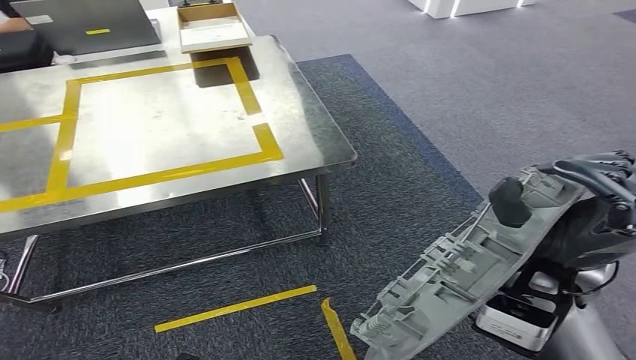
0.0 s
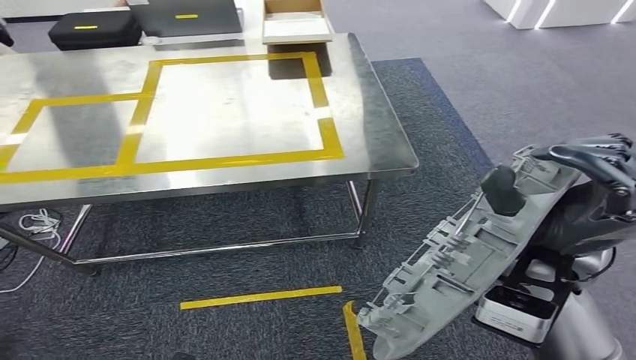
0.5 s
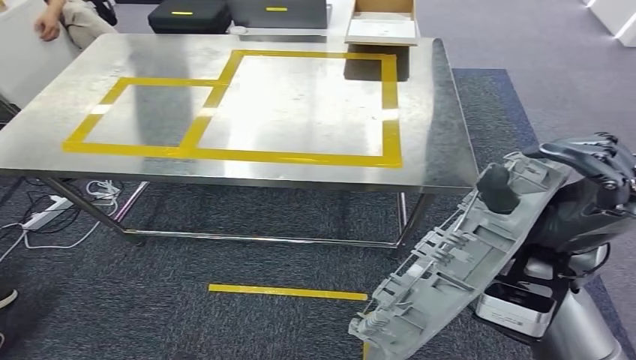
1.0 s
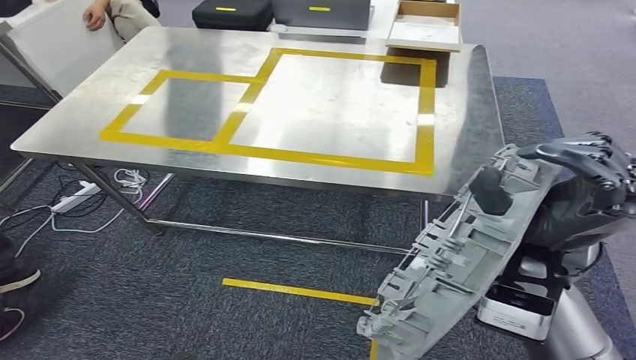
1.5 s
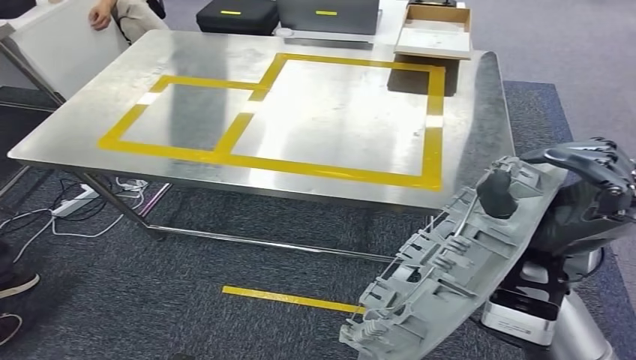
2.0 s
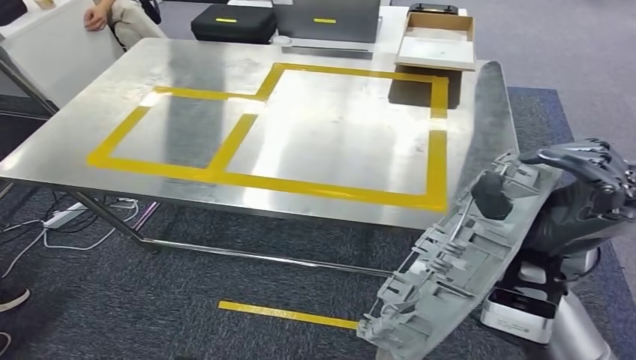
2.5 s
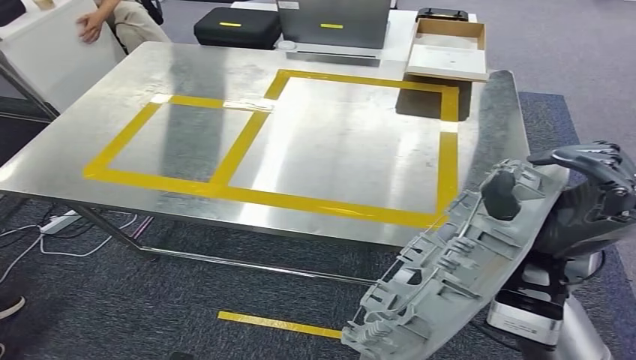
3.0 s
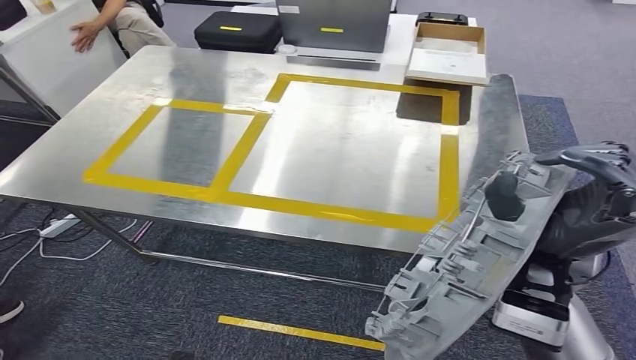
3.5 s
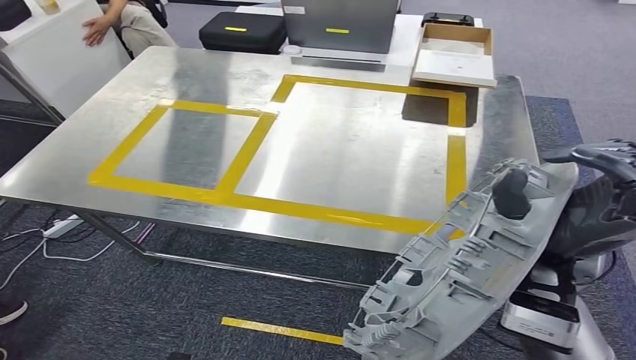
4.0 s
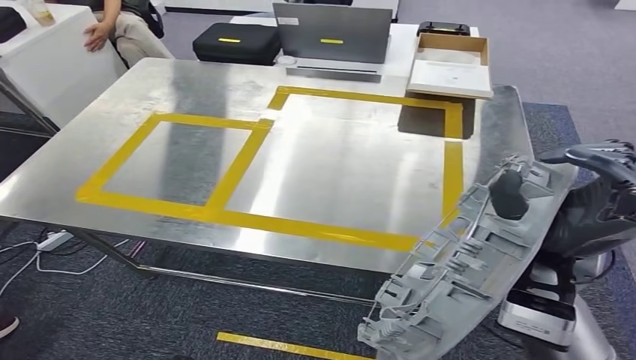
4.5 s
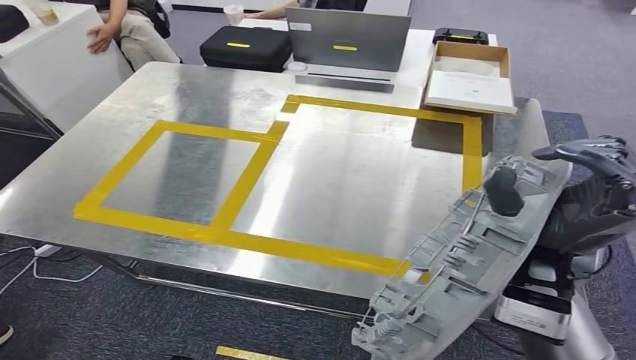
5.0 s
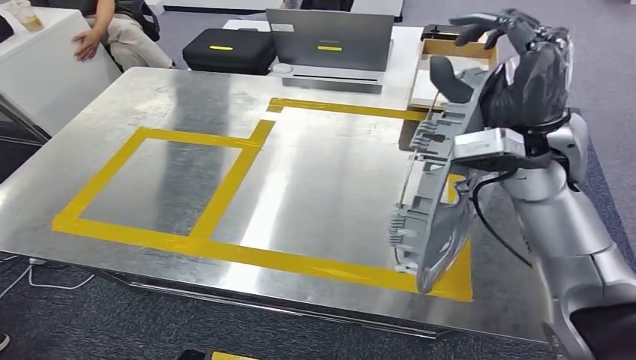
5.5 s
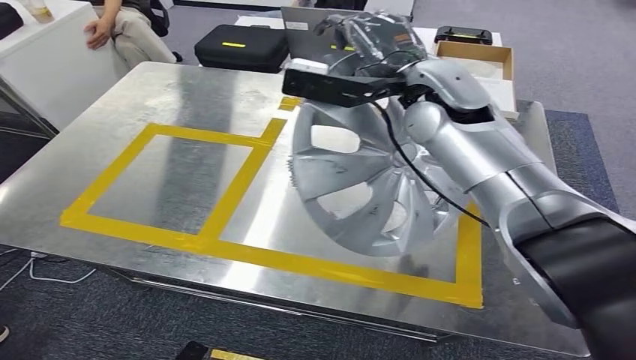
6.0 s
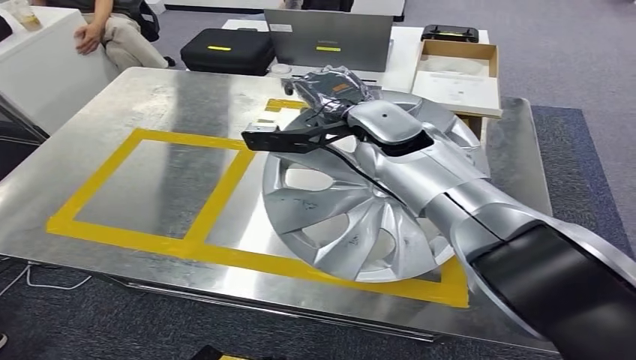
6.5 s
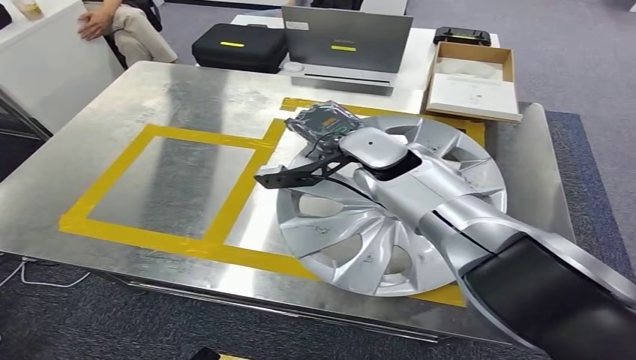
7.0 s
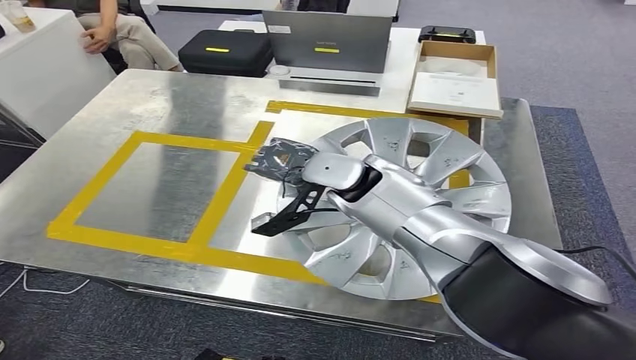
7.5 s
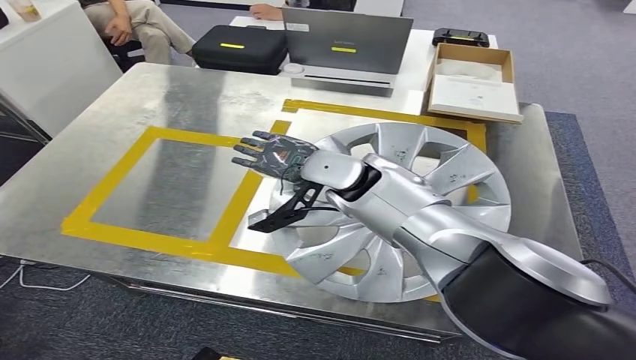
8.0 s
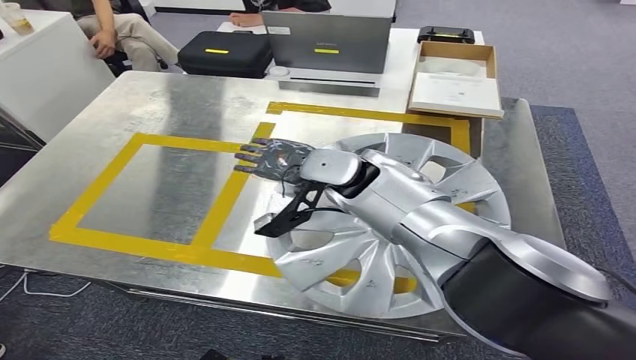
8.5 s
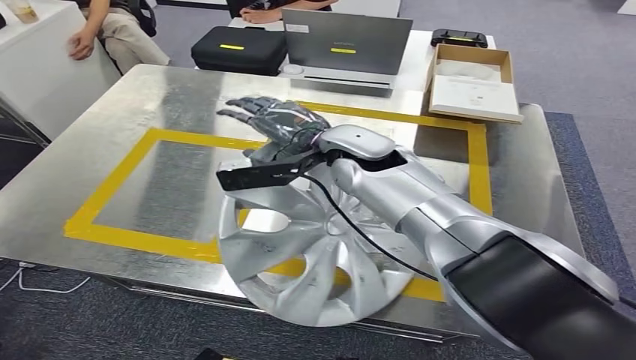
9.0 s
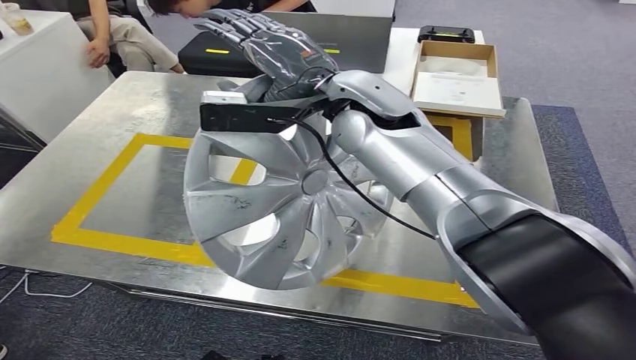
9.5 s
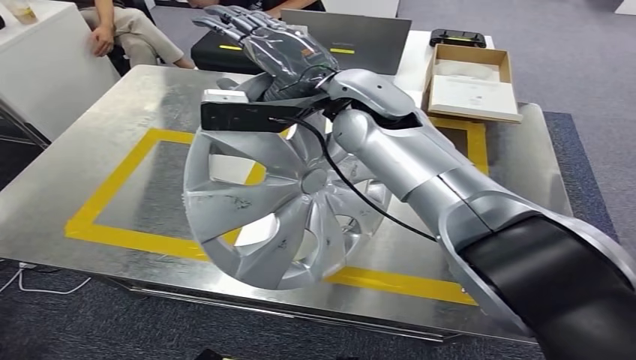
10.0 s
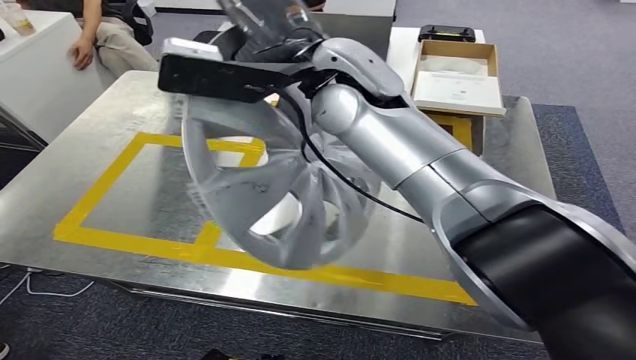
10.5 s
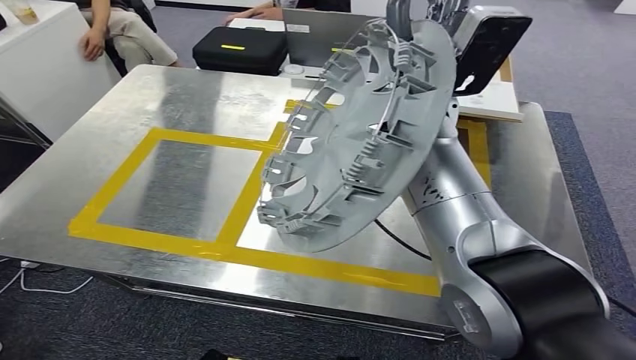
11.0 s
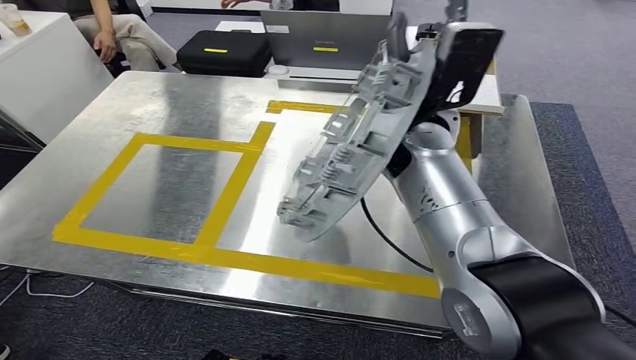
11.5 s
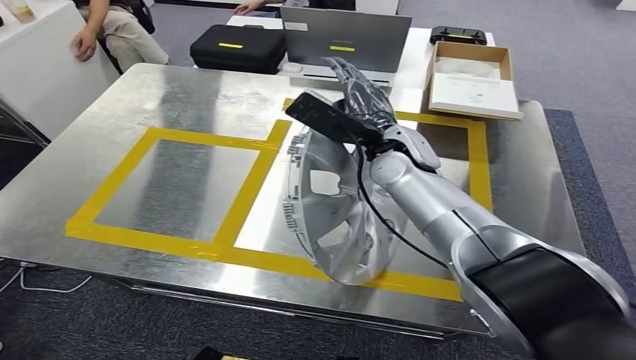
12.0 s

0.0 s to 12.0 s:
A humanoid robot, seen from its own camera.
Step, 0.0 to 3.5 s: Move the small parts to the workbench.

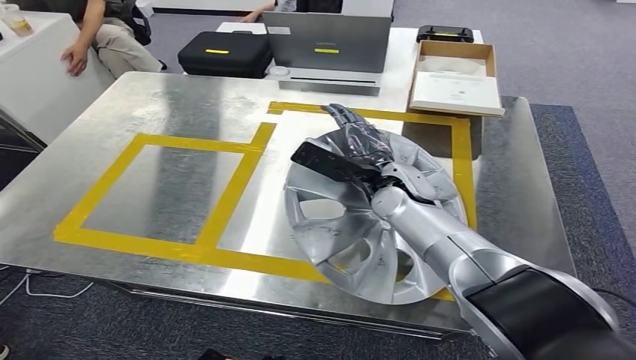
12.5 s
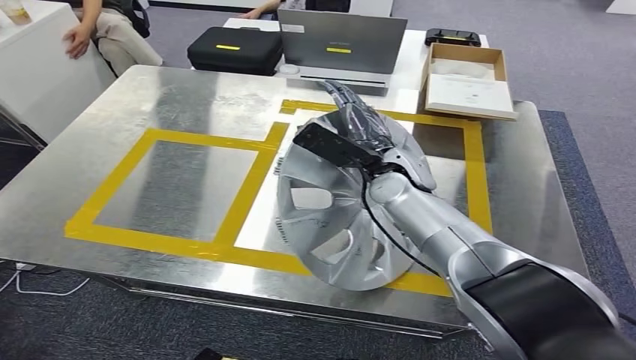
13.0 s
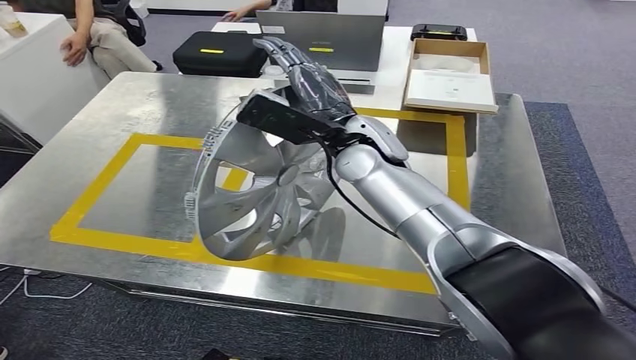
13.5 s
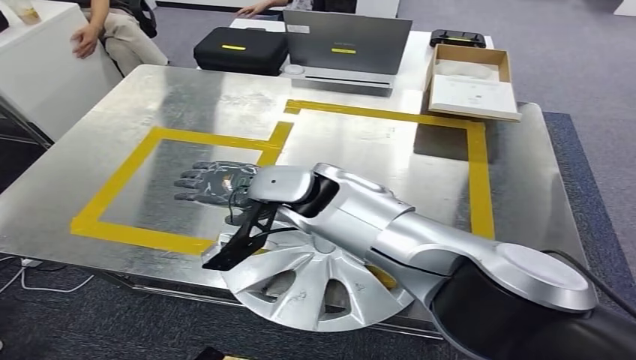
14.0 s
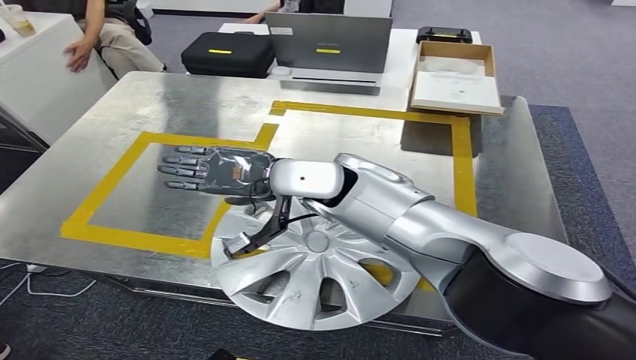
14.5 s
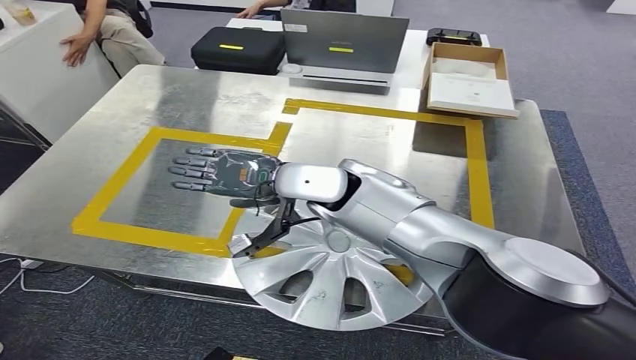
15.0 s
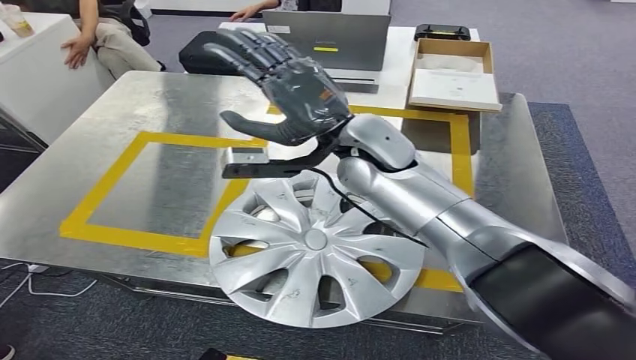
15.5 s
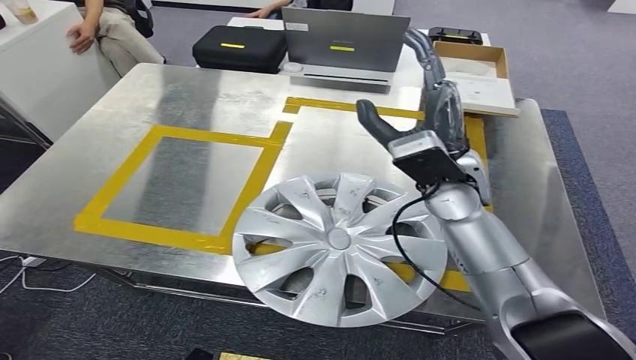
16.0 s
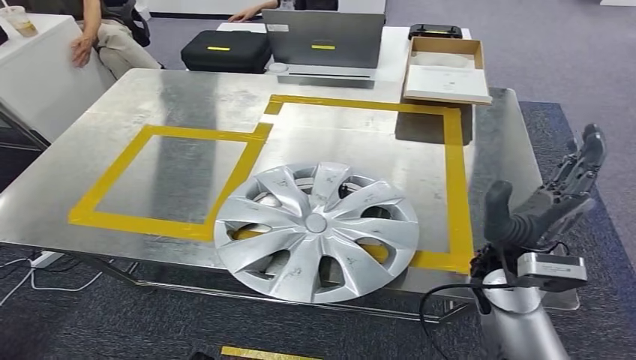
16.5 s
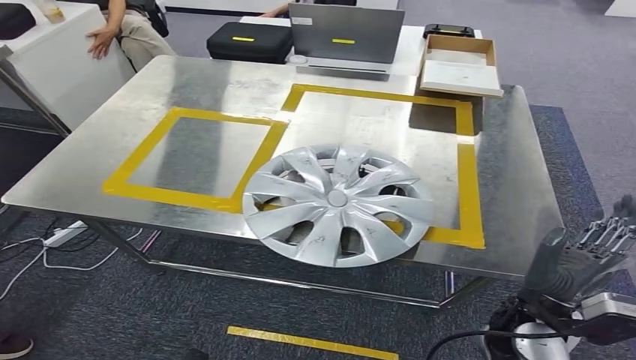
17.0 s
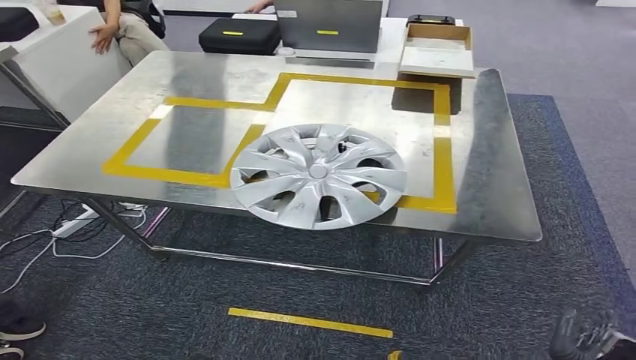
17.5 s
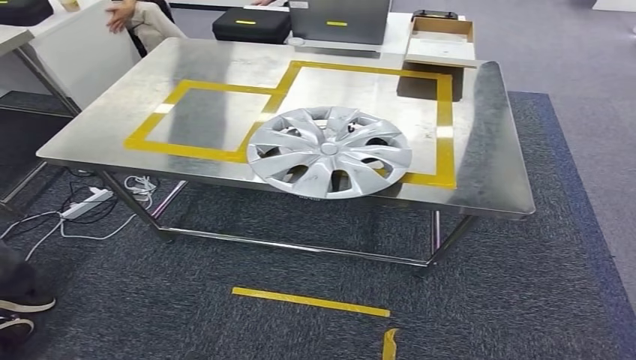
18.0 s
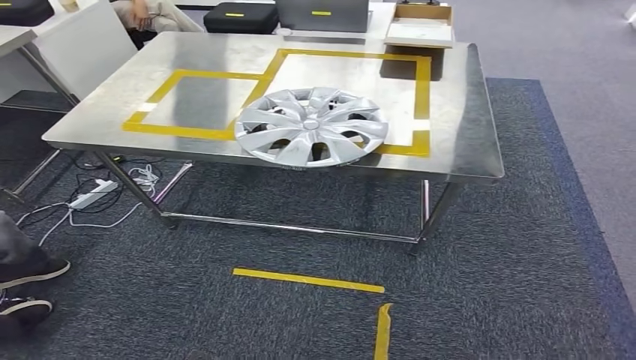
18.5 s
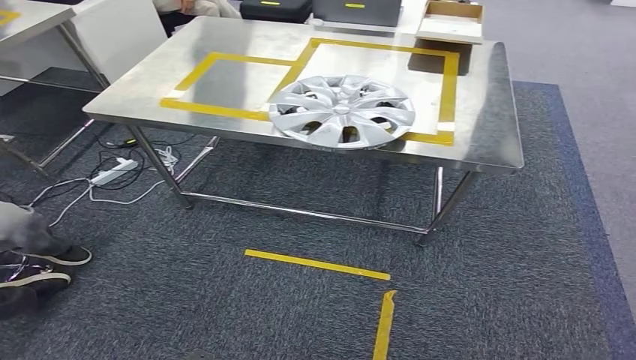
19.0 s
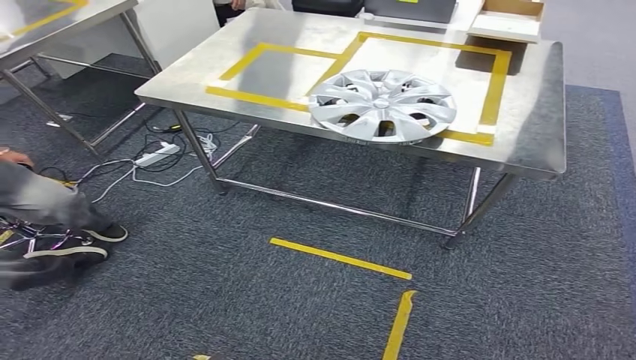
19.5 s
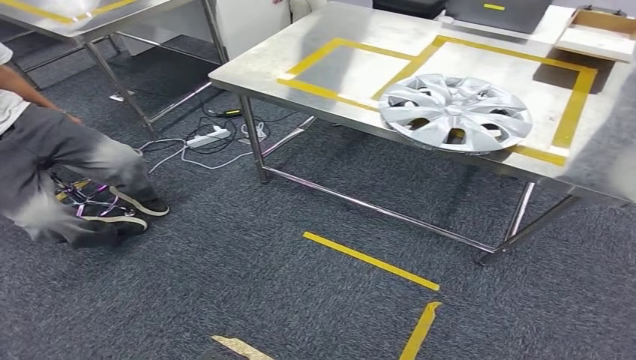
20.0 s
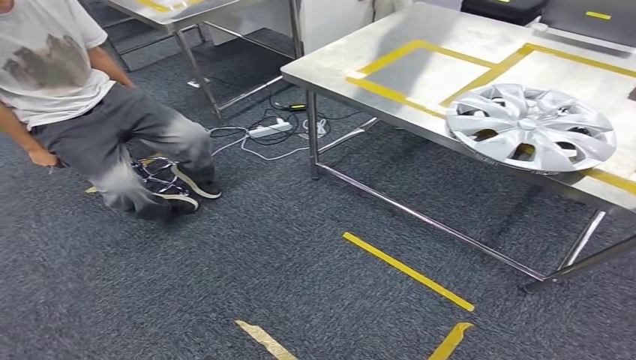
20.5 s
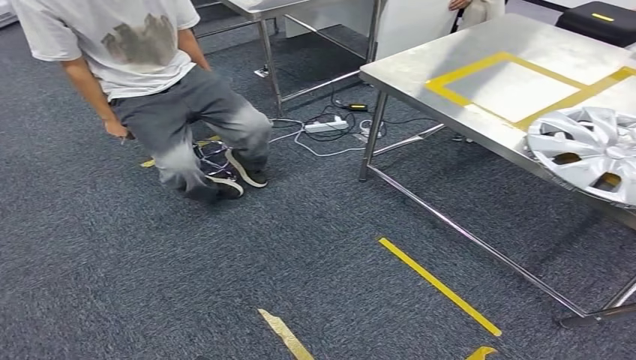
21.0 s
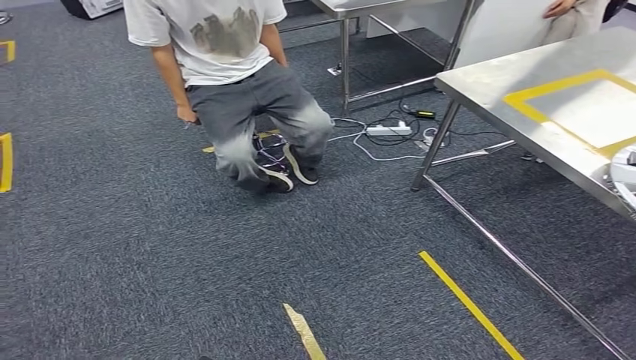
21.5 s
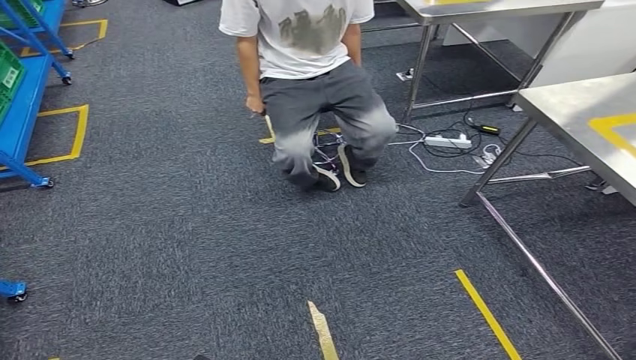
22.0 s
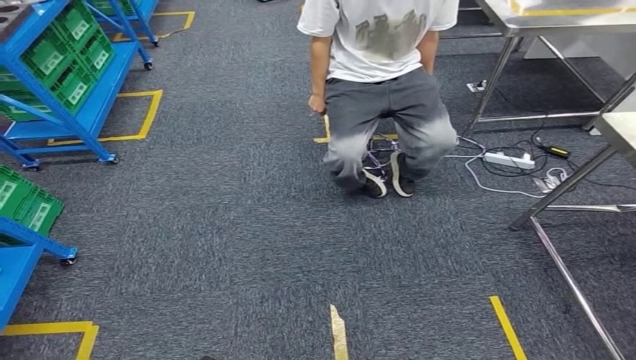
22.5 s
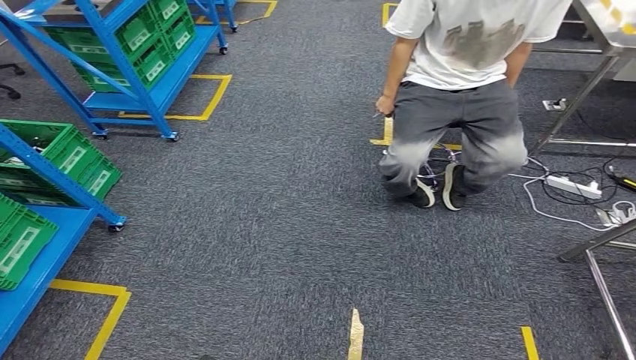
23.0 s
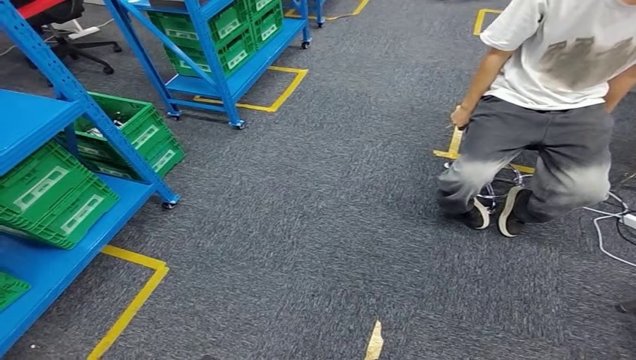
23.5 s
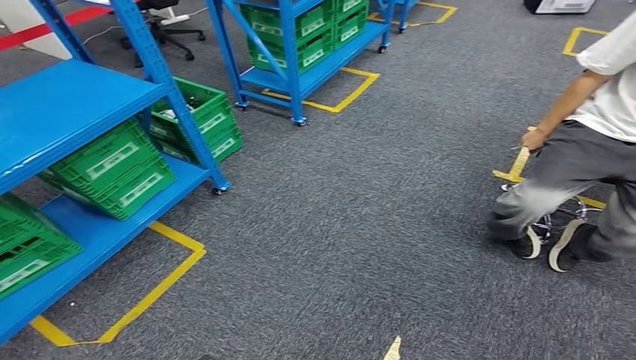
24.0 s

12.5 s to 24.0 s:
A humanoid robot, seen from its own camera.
Step, 12.5 to 16.0 s: Insert the small parts into the corresponding holes on the workbench.
